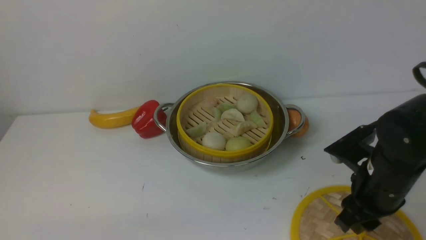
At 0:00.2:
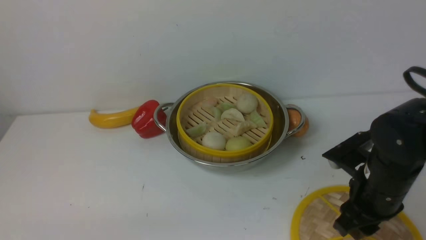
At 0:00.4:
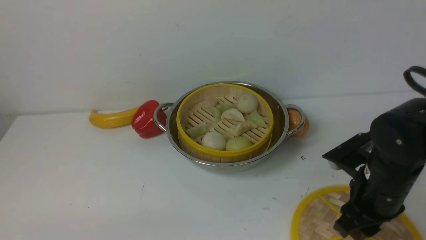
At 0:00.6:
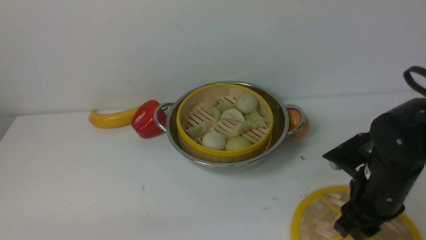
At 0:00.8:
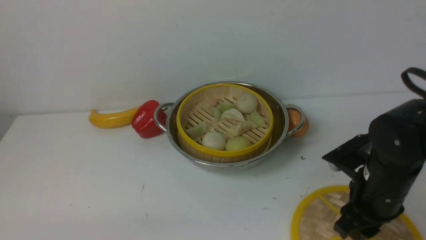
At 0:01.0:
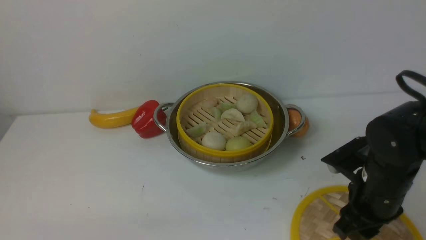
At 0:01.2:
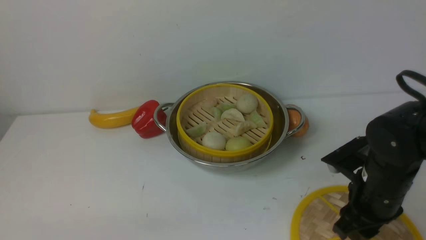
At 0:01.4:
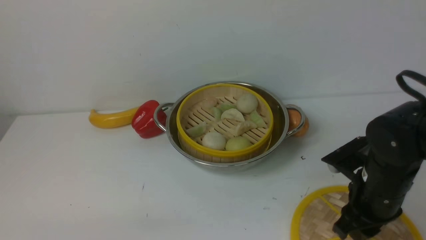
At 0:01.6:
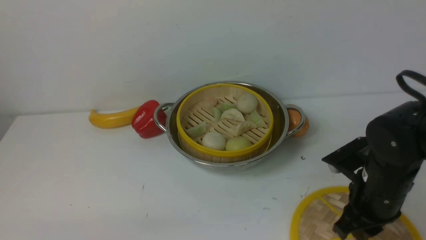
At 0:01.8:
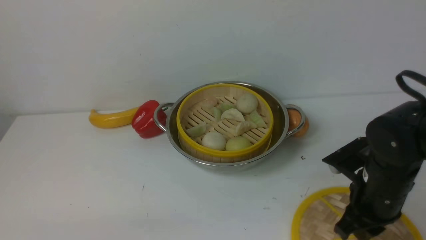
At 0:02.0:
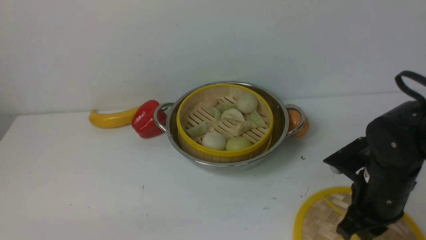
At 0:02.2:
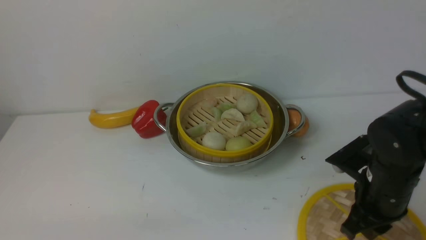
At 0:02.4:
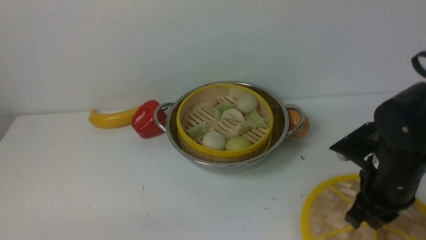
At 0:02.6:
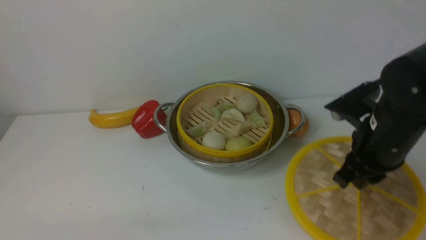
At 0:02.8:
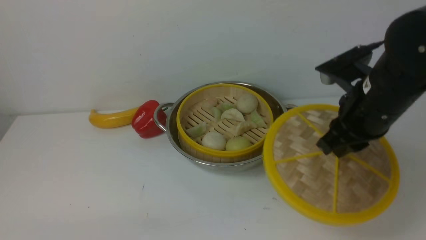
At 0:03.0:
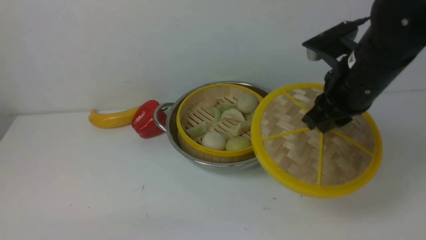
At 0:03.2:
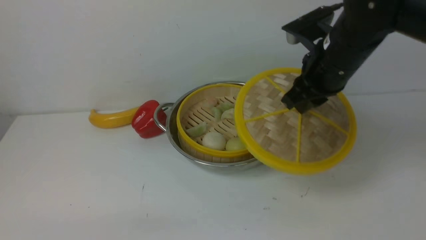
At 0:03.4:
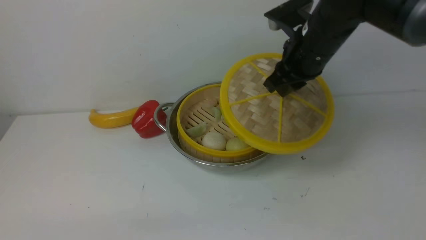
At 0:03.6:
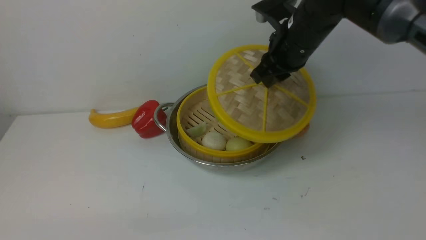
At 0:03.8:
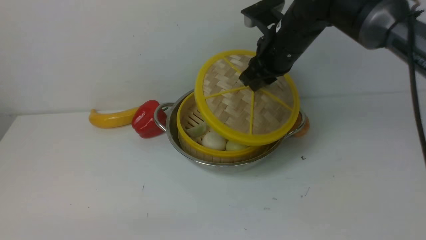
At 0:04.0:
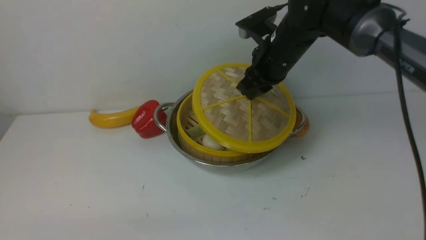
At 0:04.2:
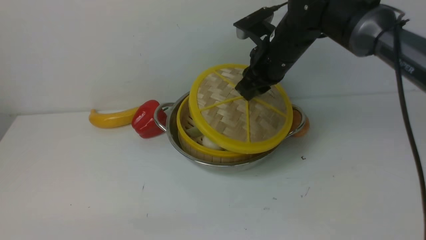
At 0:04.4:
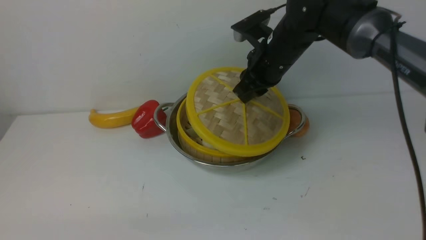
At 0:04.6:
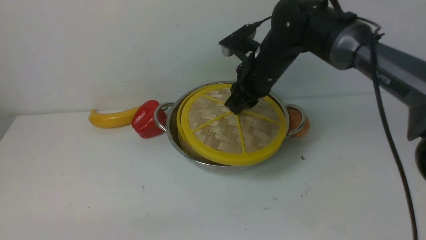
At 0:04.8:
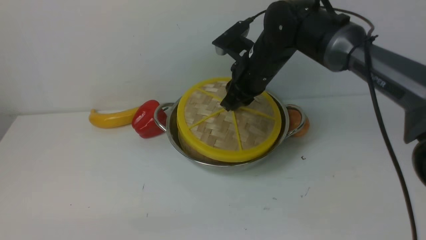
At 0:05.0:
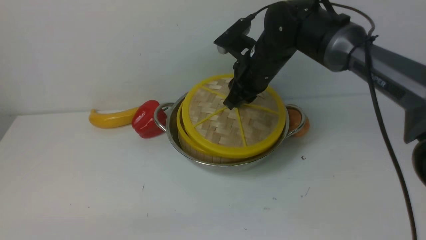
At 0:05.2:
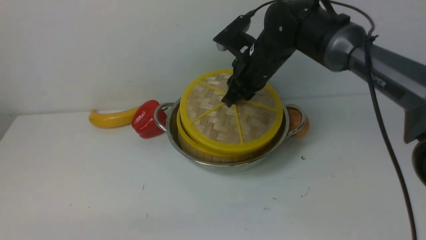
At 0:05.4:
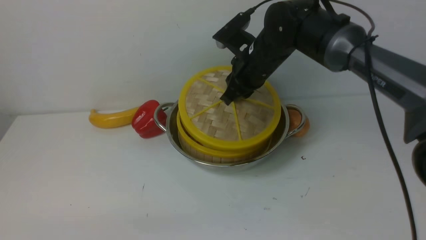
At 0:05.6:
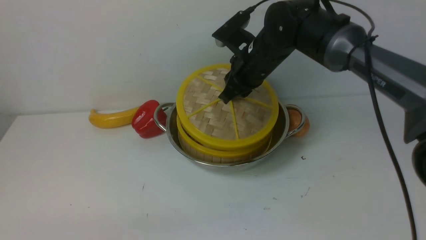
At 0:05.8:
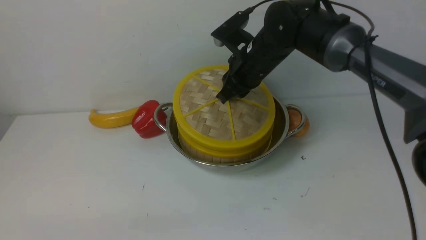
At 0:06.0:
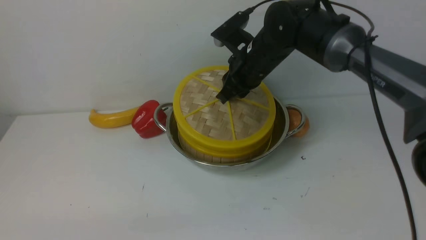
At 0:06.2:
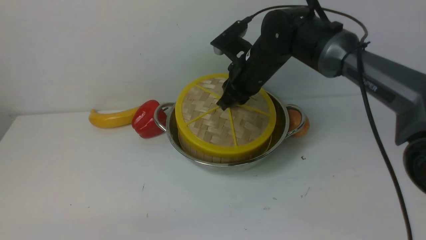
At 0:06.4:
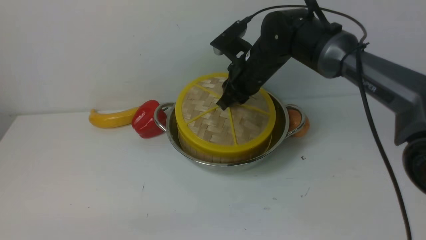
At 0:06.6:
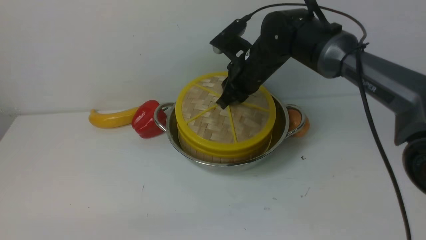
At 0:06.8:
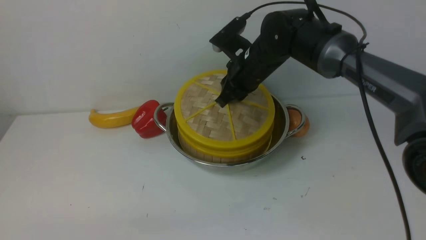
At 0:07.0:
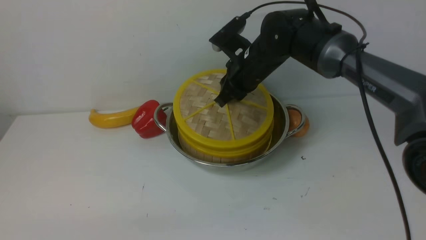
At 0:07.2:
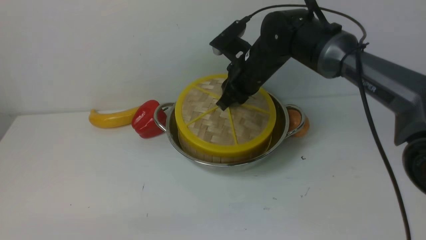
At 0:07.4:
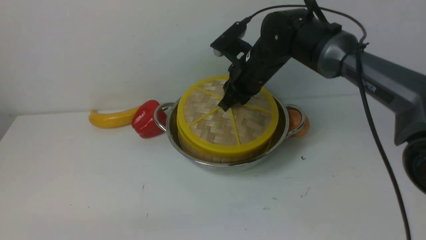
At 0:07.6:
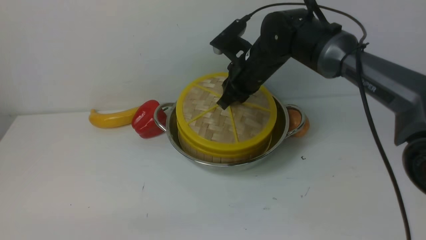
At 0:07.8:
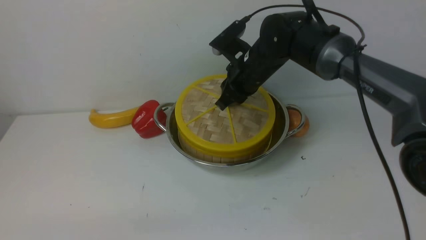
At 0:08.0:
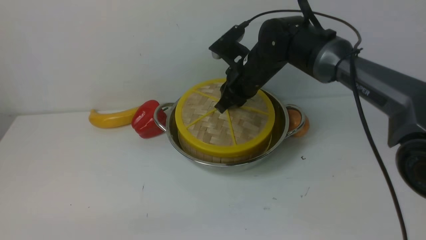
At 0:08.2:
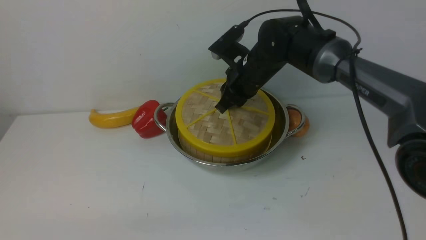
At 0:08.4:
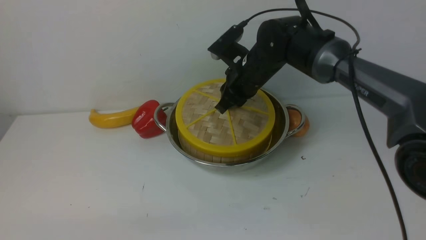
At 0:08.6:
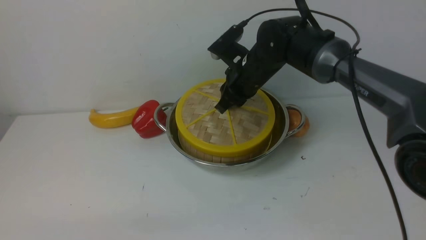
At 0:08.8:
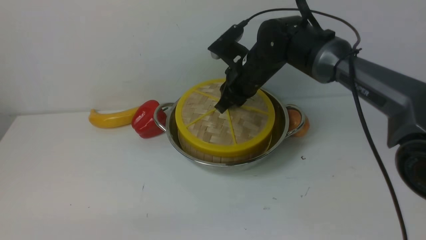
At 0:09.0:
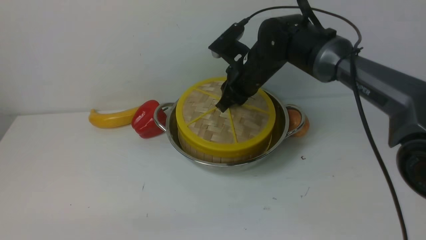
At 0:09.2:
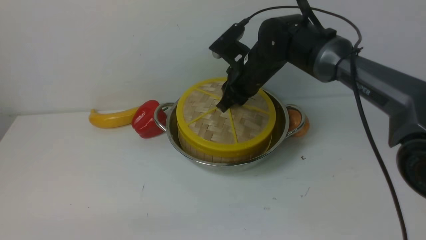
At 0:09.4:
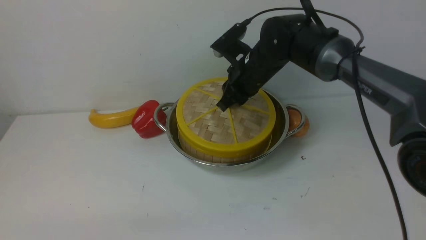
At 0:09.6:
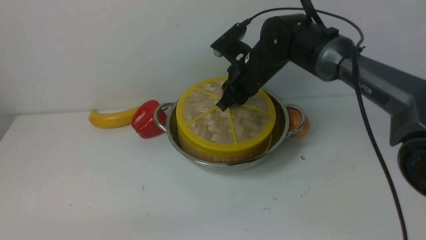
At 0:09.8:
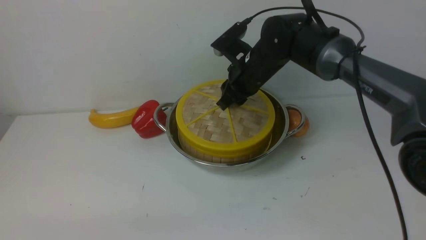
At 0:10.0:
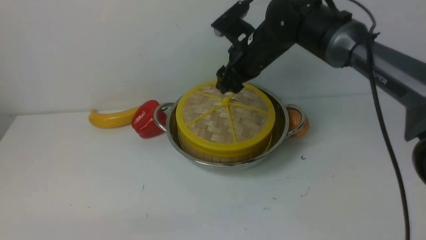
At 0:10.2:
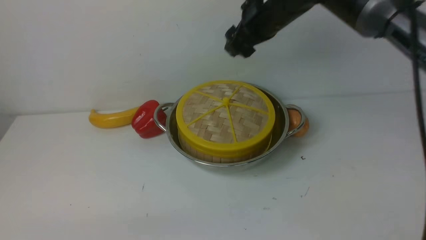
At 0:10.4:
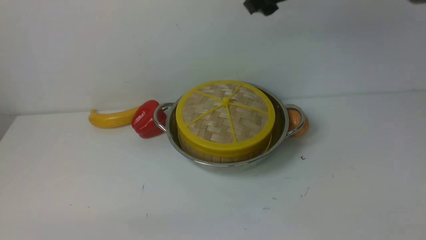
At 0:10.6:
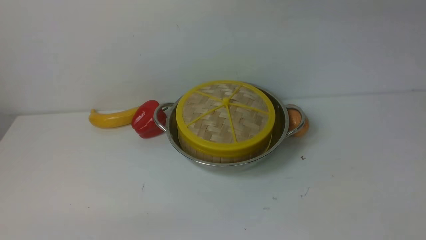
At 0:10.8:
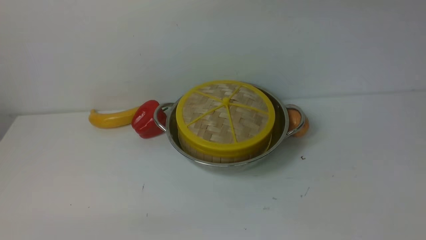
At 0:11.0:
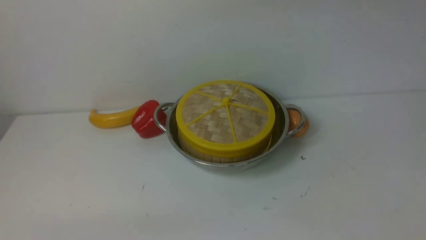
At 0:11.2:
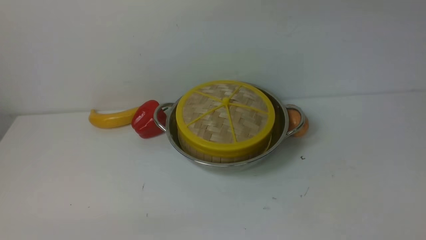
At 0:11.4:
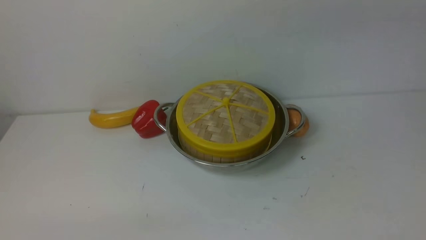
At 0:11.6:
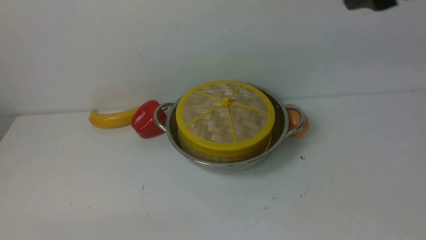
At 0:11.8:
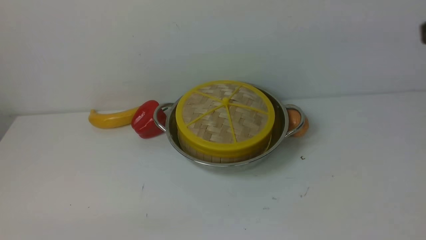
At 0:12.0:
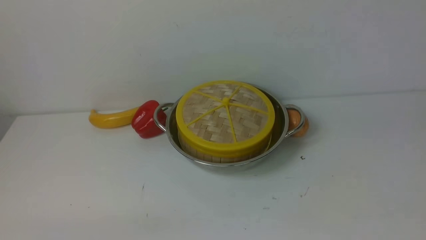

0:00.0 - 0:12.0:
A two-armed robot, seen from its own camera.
Task of the whole recording: place the steamer in the pot on the white table, and put the lid on the steamer.
Step, 0:00.0 - 0:02.8: use the right arm to lift the lid of the steamer.
Step, 0:03.2 - 0:11.2: use the right arm to place the steamer lid on the steamer.
0:00.0 - 0:01.6: The right gripper closes up.
0:01.6 - 0:03.0: The right gripper travels upward and forward by some 15 cm.
0:03.0 - 0:04.4: The right gripper shifts roughly 15 cm forward and to the left.
0:04.4 - 0:06.0: The grippers move only a little.
0:06.0 - 0:07.6: The two grippers keep their place.
0:07.6 - 0:09.0: Both grippers stay about where they are.
0:09.0 - 0:10.4: The right gripper travels upward by roughly 20 cm, and opens.
0:10.4 - 0:12.0: The right gripper travels backward and to the right by some 35 cm, and closes up.

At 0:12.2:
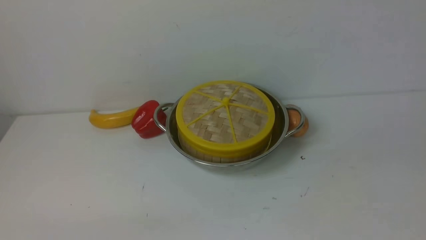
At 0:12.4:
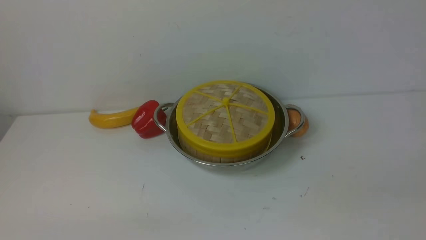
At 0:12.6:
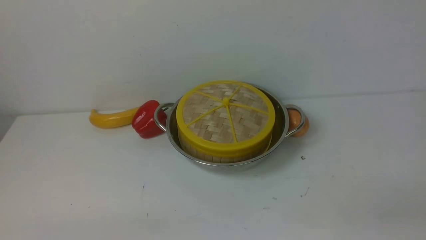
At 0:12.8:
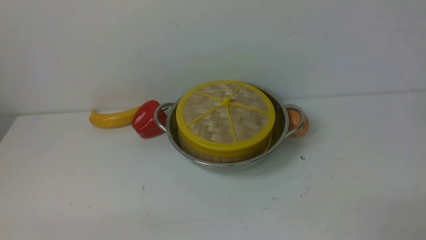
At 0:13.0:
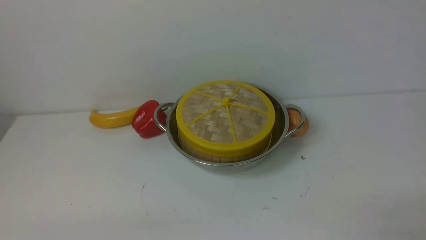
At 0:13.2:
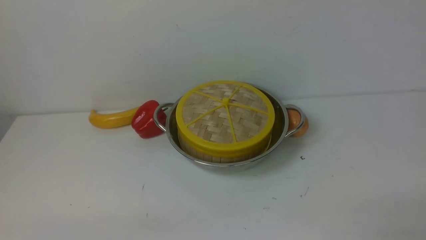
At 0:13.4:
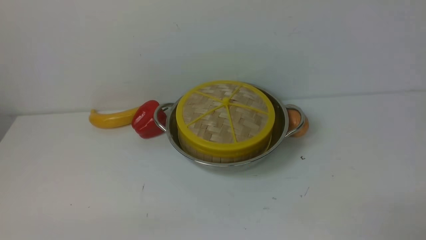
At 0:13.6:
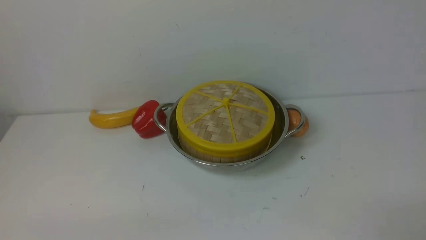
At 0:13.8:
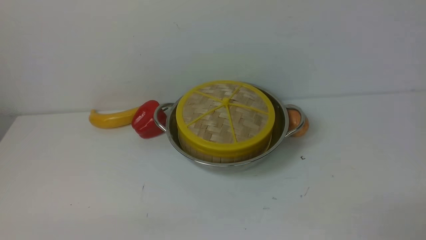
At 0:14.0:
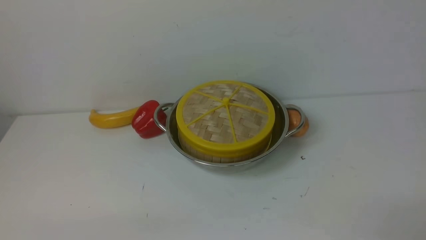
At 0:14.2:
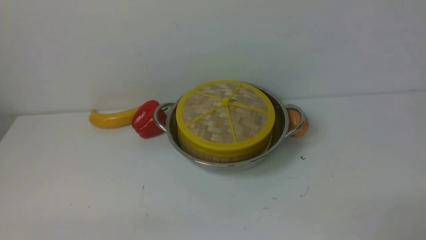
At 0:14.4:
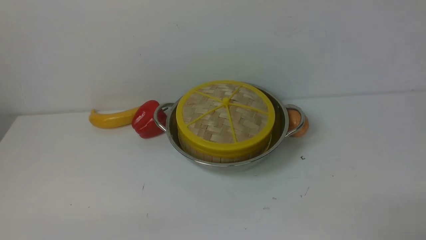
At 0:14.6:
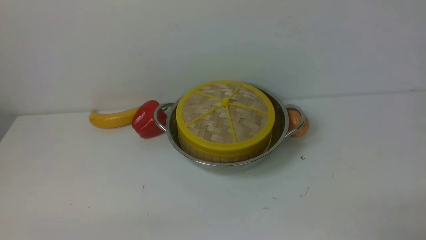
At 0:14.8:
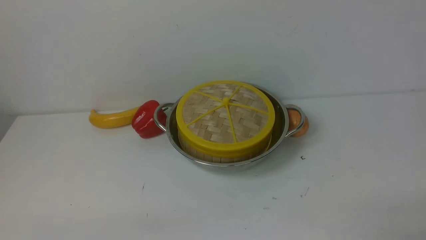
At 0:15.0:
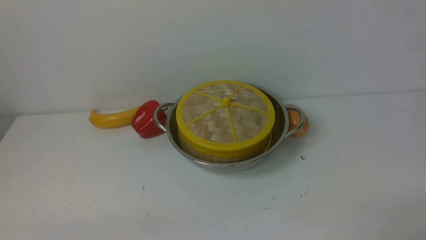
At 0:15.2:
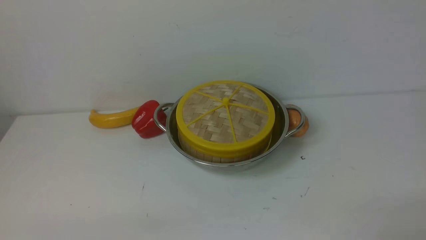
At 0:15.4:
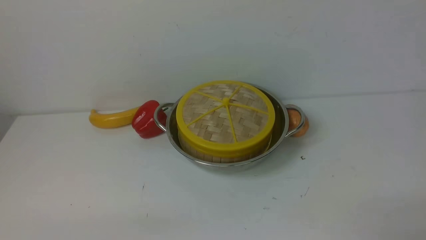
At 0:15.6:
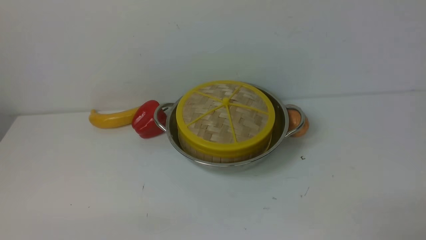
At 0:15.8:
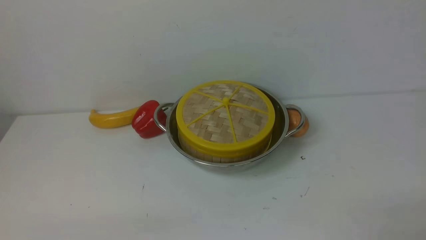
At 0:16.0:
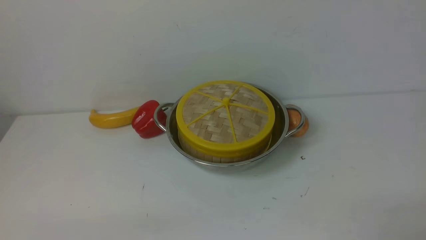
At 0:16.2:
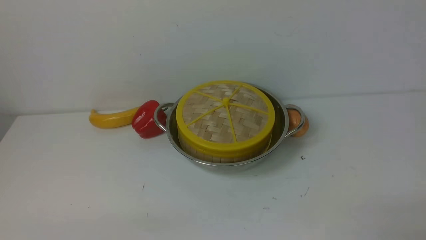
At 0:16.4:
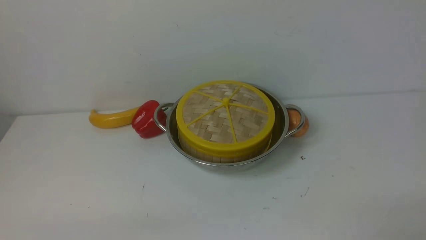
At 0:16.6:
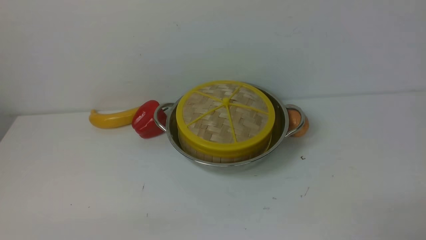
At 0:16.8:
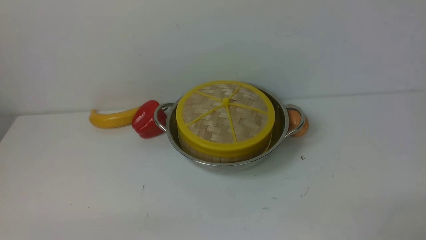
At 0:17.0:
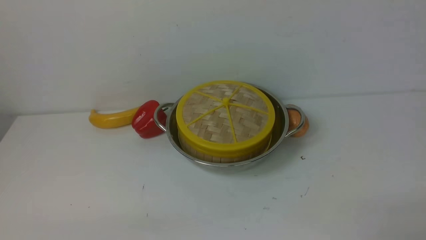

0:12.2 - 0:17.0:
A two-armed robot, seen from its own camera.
Task of the whole recording: place the steamer in the pot on the white table, and put the lid on the steamer.
0:15.4 - 0:17.0: Both grippers stay about where they are.
